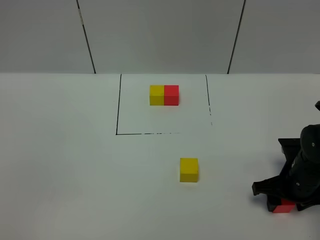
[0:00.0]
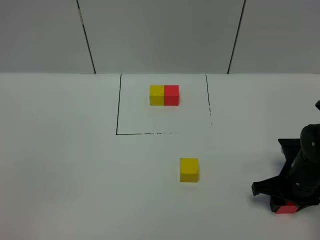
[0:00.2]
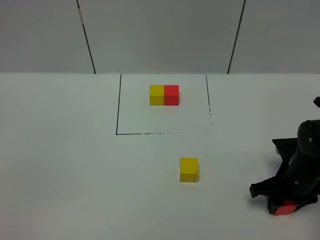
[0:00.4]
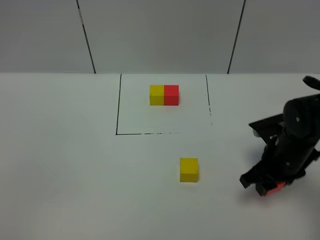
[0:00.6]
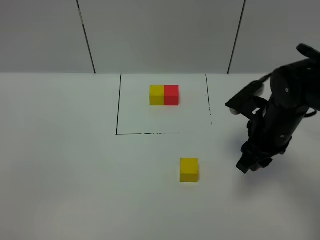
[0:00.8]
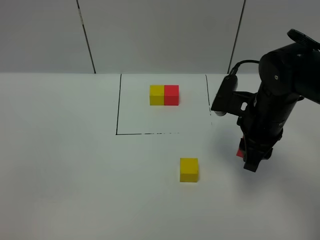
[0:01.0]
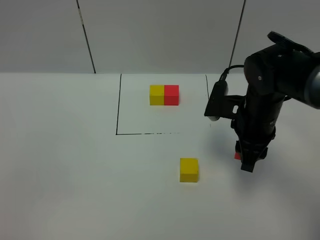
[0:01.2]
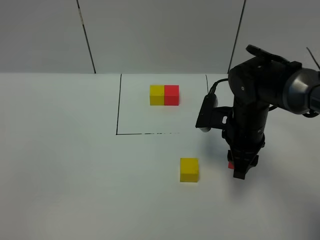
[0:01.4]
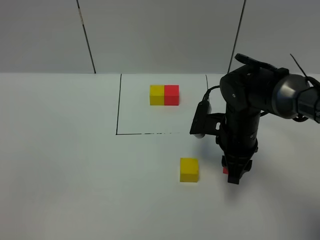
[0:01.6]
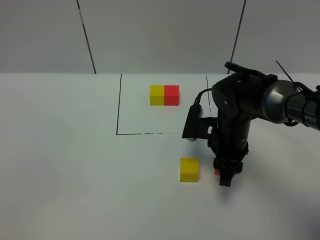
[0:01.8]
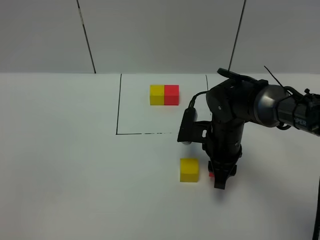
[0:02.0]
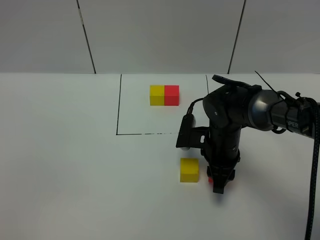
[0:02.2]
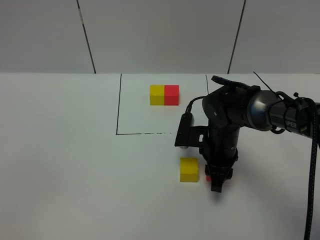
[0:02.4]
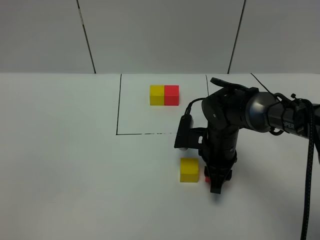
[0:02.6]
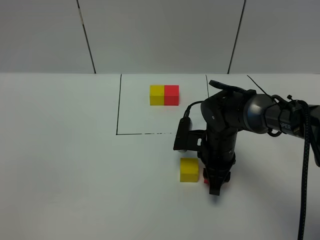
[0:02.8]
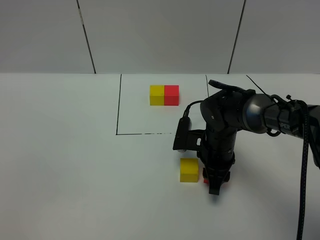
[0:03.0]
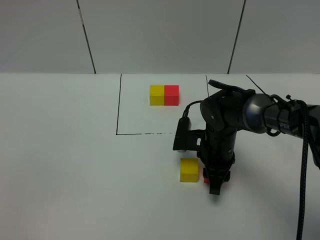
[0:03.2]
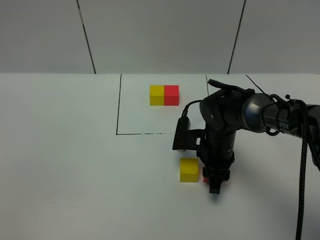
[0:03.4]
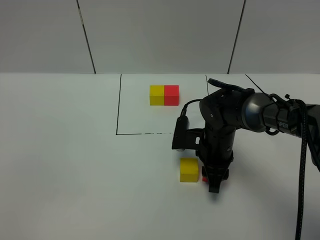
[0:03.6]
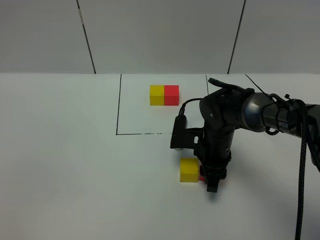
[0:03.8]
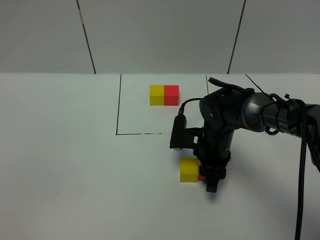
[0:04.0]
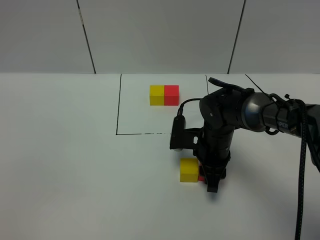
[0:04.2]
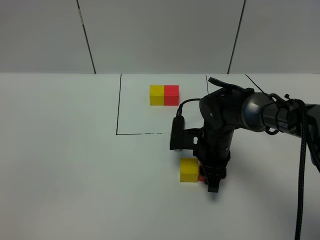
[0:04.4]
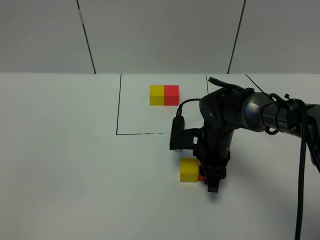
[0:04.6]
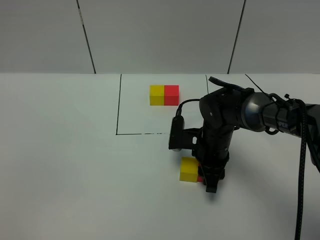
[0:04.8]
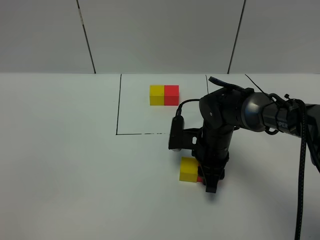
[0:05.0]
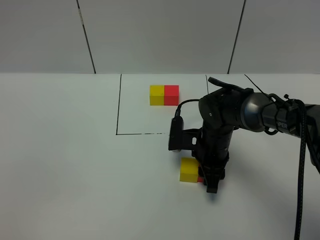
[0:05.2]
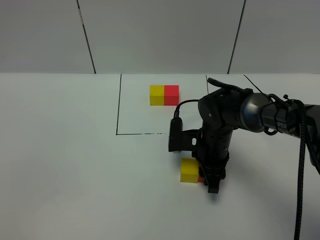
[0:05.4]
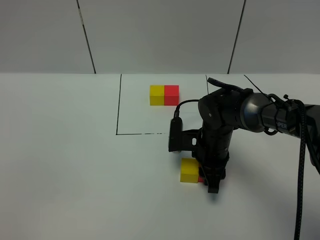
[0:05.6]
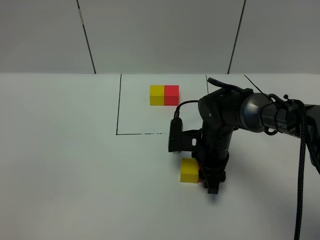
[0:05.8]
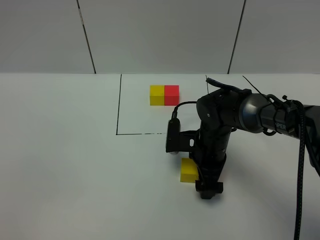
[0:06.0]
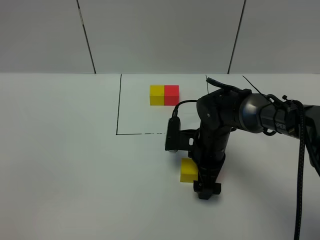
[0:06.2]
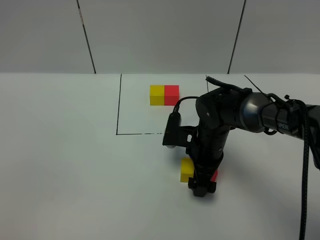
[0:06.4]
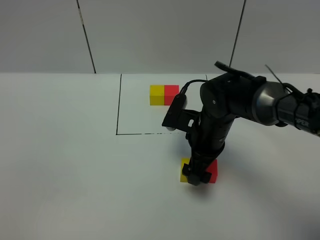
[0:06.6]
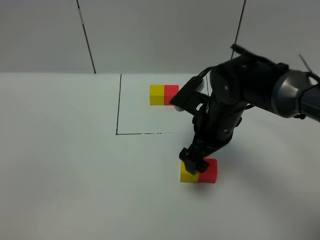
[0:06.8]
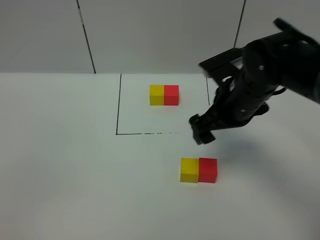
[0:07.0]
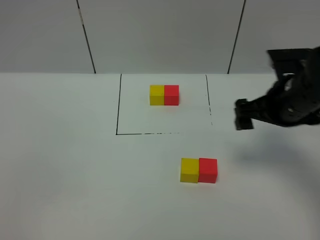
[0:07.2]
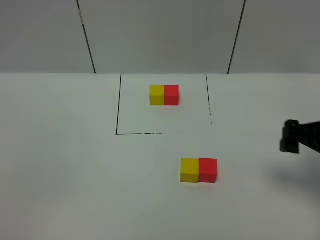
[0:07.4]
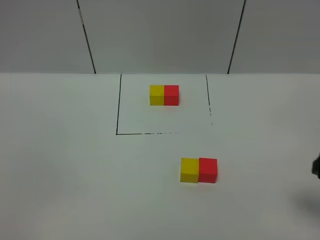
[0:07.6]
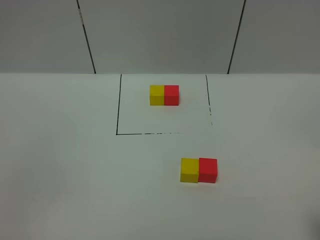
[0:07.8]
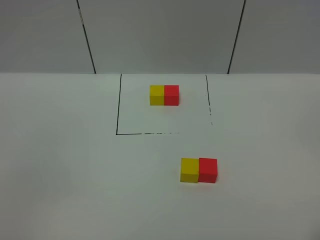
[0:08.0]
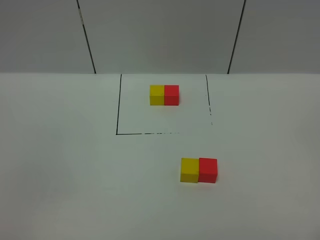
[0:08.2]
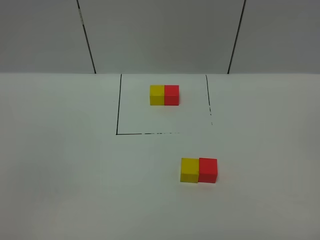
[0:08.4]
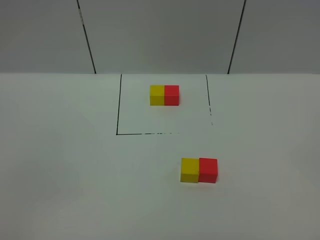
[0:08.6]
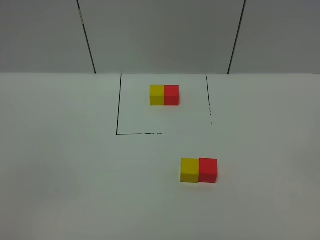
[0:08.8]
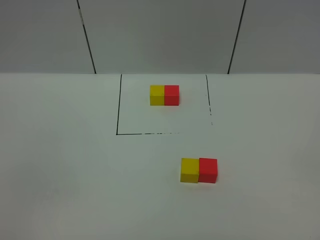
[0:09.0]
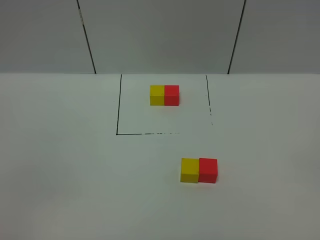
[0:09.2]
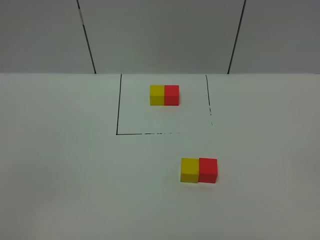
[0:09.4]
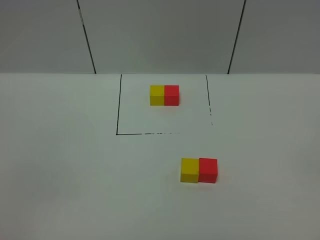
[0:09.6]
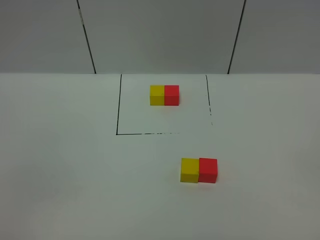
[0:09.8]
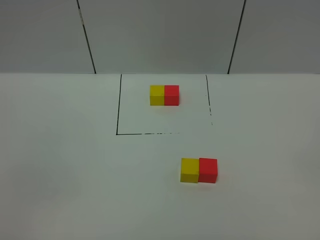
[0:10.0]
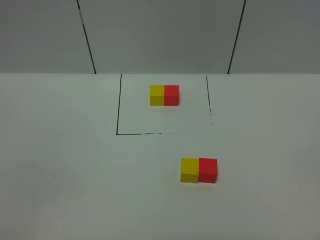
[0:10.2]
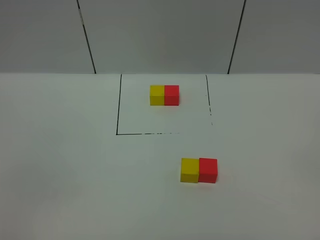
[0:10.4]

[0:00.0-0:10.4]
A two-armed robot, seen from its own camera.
Task of the whole recording: According to the building block template in front, assemble the scattered blocks together.
Step, 0:00.0 to 0:05.8: Put the red cube on the right of the yellow cube.
0:00.0 to 0:01.4: The right gripper moves to the left, upward and forward, about 15 cm.
0:01.4 to 0:03.0: The right gripper shifts approximately 5 cm downward.
0:03.0 to 0:04.4: The grippers move only a little.
0:04.4 to 0:06.0: The right gripper opens up.
0:06.0 to 0:07.4: The right gripper moves to the right, upward and backward, some 25 cm.
0:07.4 to 0:09.0: The right gripper heads backward, covering roughly 25 cm.
0:09.0 to 0:10.4: Both grippers stay about where they are.
